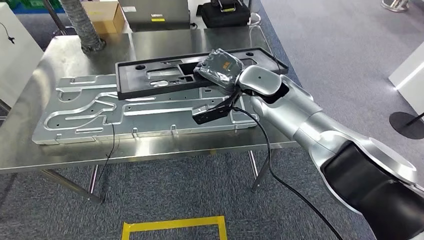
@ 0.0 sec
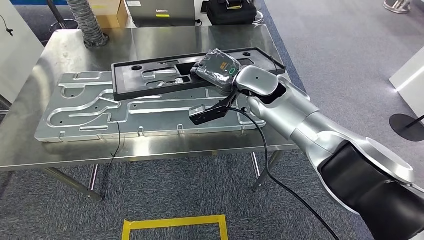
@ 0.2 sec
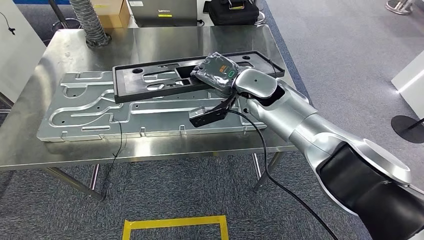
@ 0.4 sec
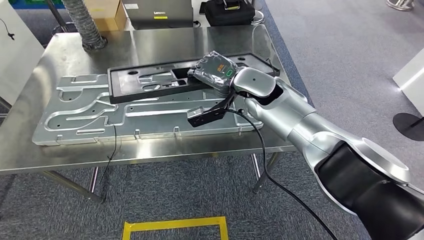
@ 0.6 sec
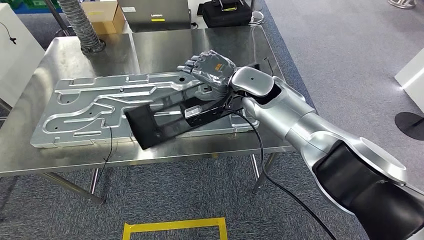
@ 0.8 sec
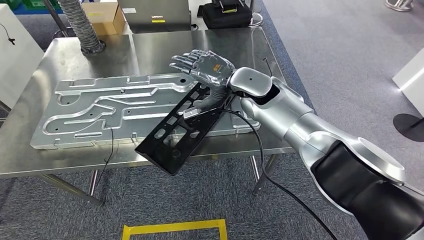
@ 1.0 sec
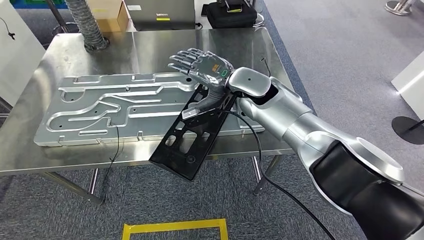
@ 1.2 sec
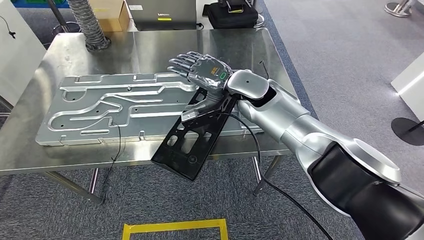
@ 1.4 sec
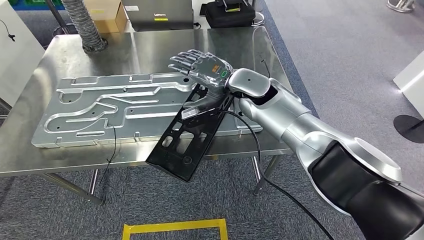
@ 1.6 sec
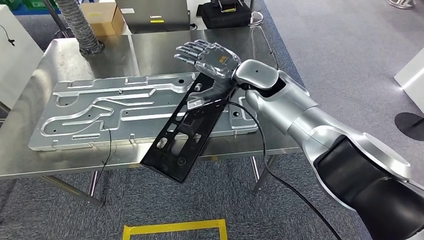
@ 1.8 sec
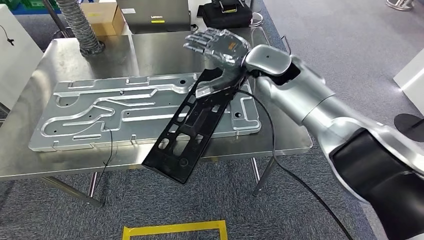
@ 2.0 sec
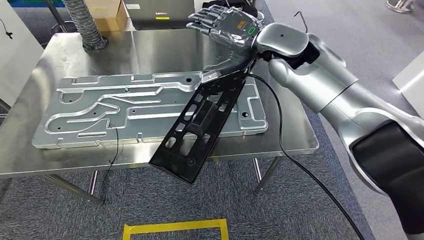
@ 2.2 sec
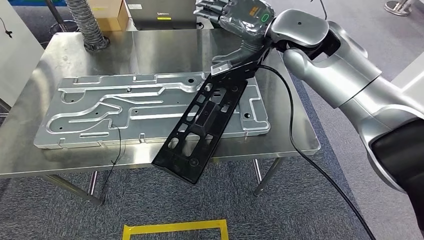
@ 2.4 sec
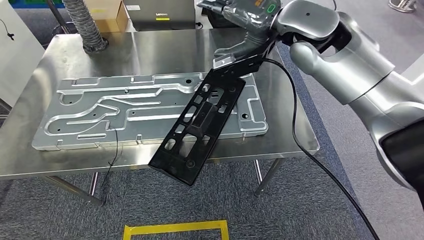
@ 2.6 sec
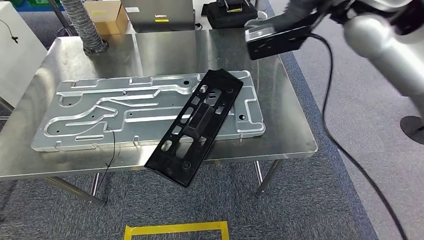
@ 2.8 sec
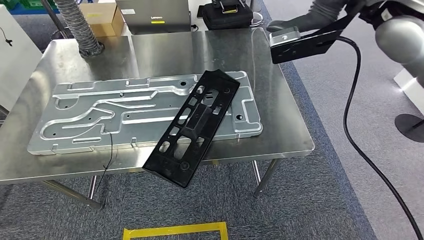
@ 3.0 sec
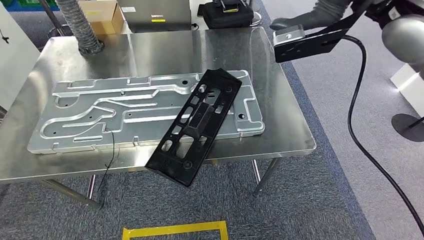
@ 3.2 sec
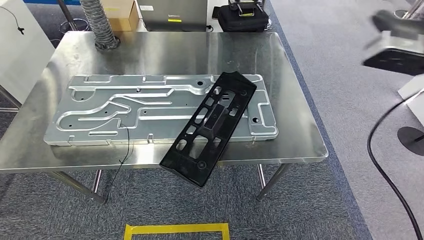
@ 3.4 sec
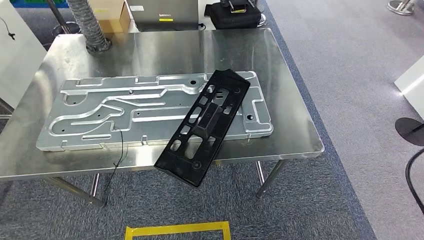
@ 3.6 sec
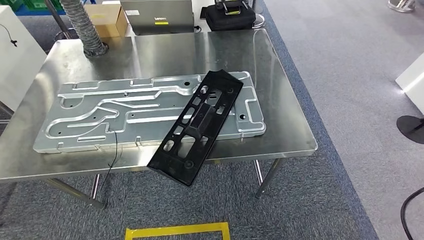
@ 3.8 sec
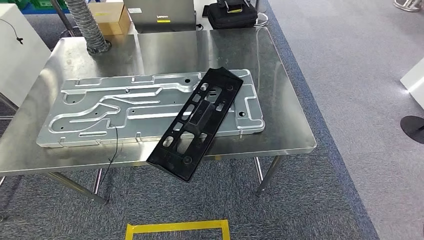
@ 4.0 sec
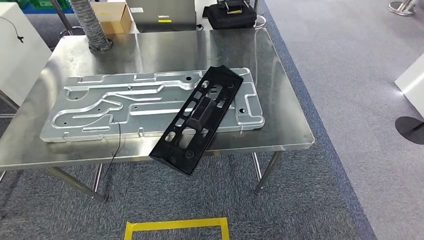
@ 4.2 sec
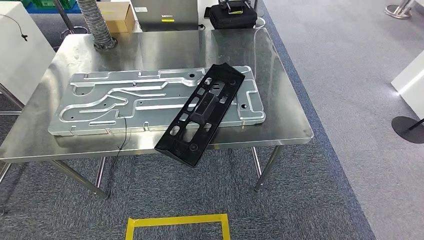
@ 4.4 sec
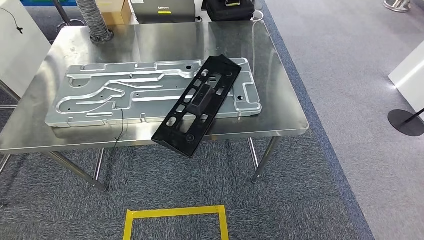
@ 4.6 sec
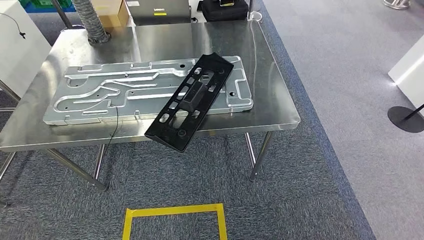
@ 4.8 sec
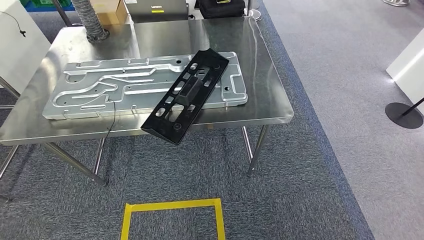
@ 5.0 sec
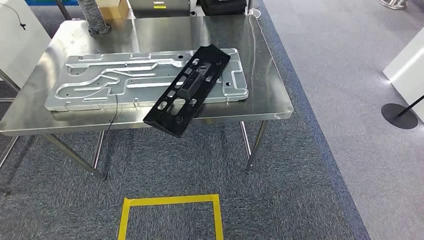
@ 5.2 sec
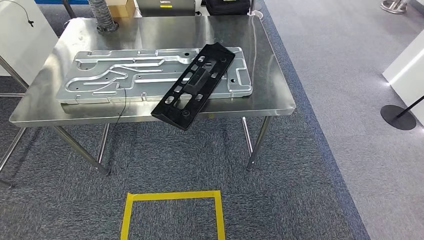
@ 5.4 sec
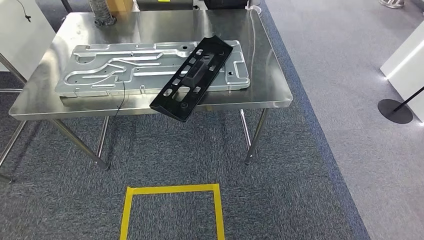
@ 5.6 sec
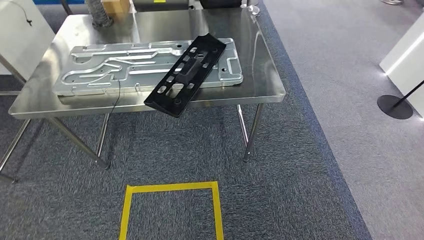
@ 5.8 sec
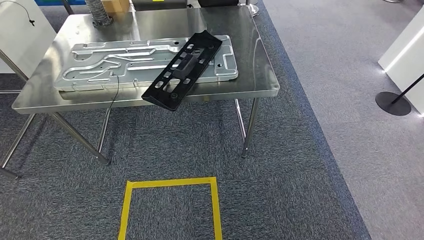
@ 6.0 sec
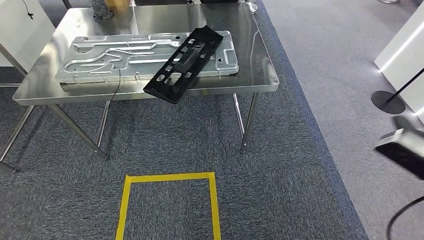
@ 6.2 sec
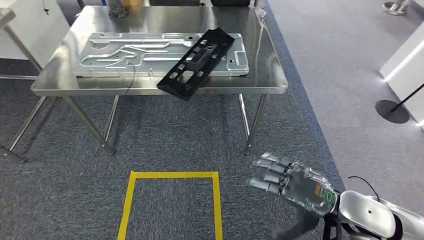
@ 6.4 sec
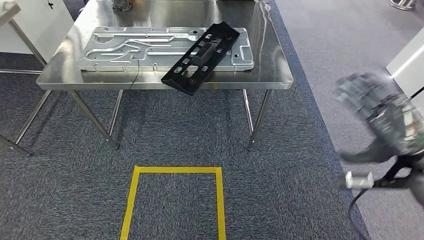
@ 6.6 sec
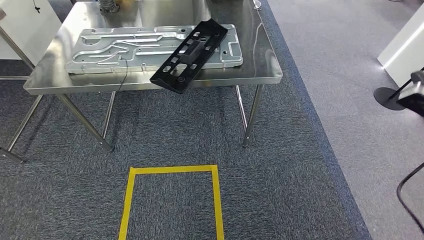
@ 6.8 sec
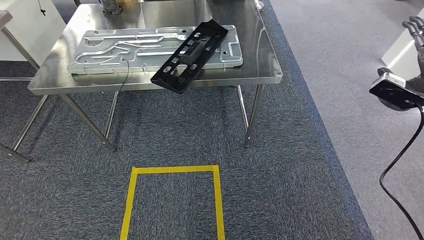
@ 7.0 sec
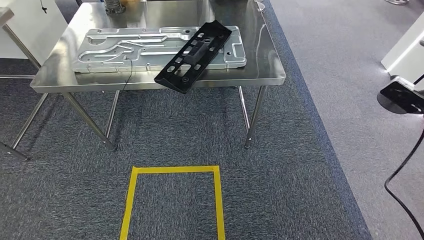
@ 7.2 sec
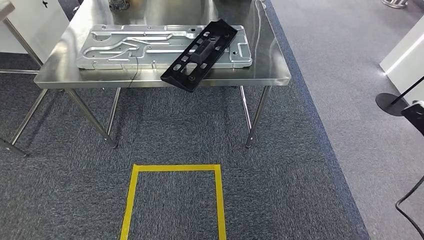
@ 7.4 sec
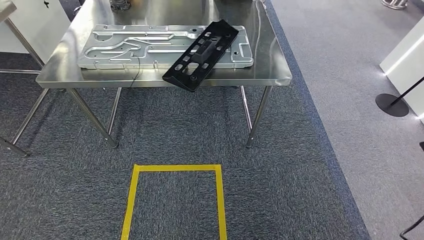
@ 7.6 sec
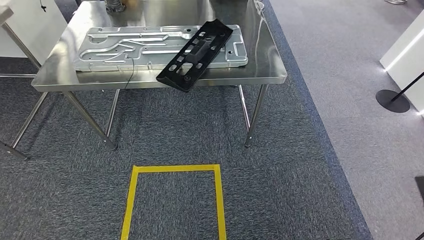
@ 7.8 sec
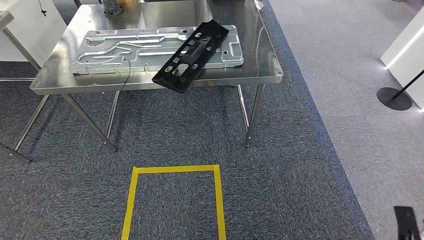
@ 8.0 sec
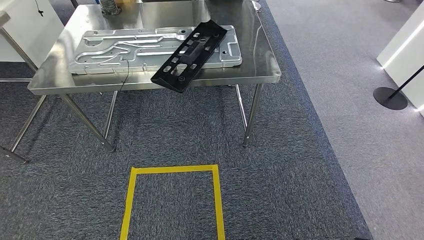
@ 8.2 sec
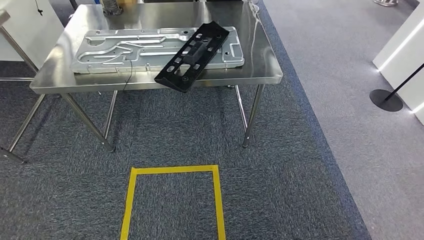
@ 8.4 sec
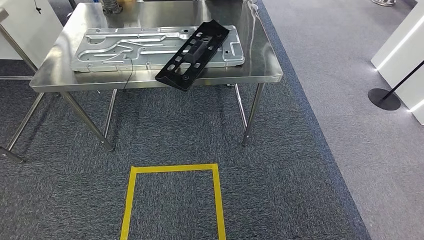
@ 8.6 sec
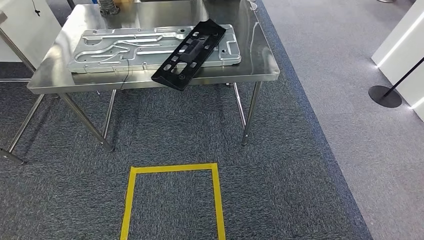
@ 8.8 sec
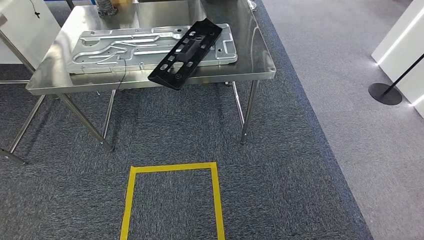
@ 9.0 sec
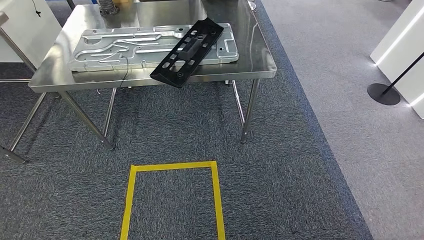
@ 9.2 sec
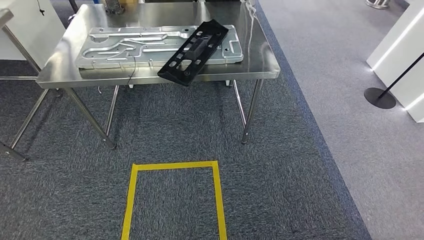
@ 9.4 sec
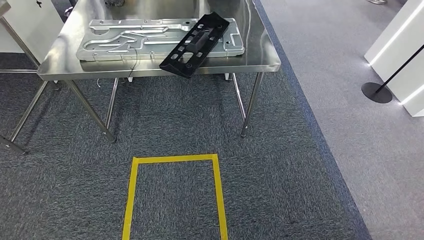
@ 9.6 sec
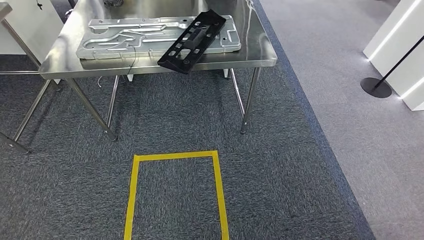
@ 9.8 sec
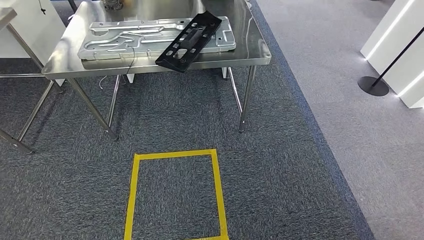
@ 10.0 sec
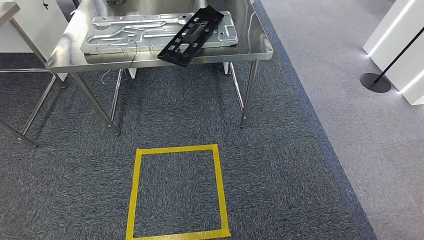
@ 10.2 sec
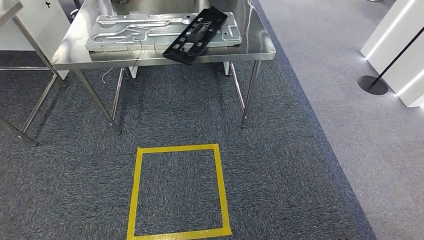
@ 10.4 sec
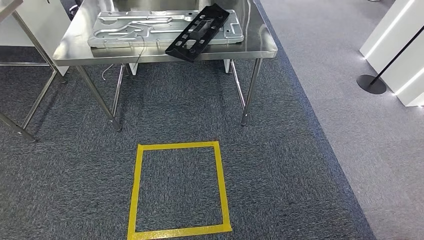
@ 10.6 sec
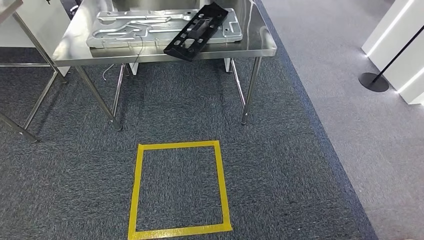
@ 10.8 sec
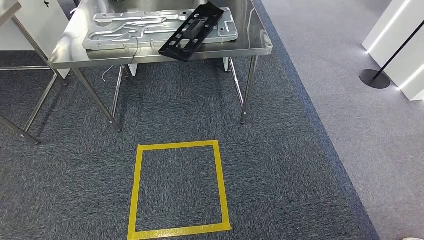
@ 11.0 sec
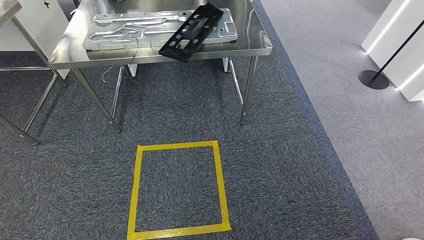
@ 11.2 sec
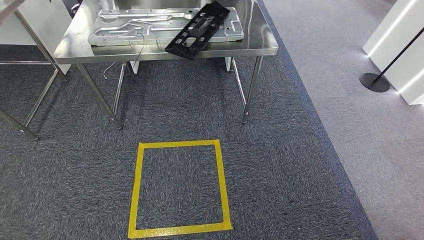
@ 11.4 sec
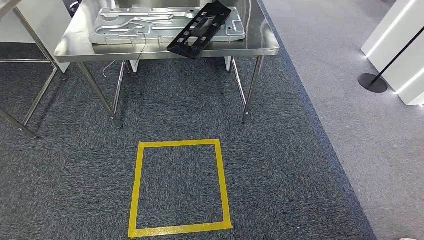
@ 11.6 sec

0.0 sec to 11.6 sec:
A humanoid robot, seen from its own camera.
Step, 0.2 sec to 3.2 sec: Insert the large material into the corresponding slot on the workbench.
Step, 3.4 sec to 11.6 sec: Move to the initial position of the shelf.
7.2 sec to 8.8 sec: The right hand shifts roughly 60 cm downward, backward and to the left.
10.2 sec to 11.6 sec: The hands move only a little.
